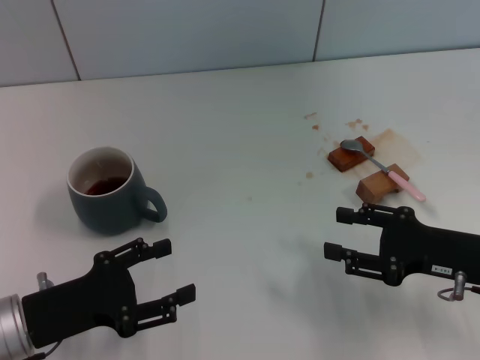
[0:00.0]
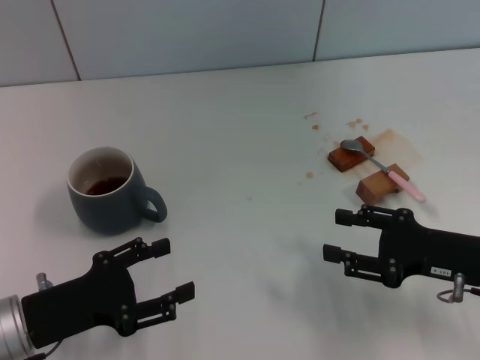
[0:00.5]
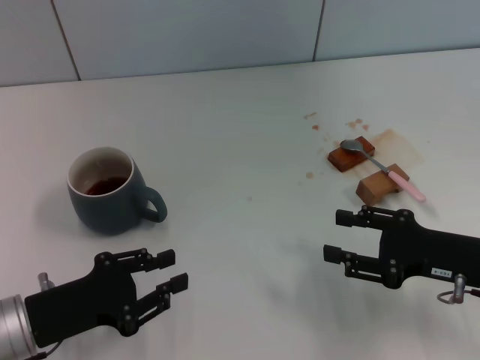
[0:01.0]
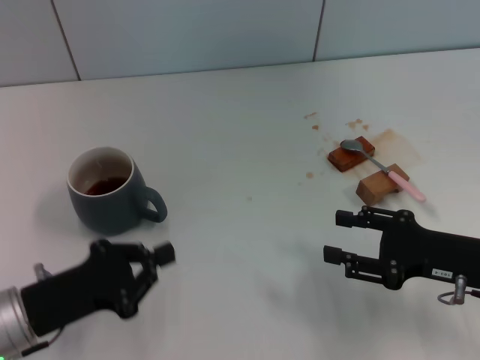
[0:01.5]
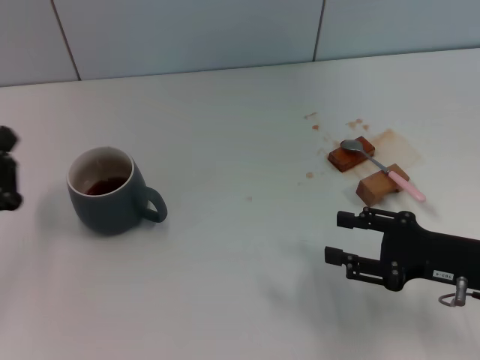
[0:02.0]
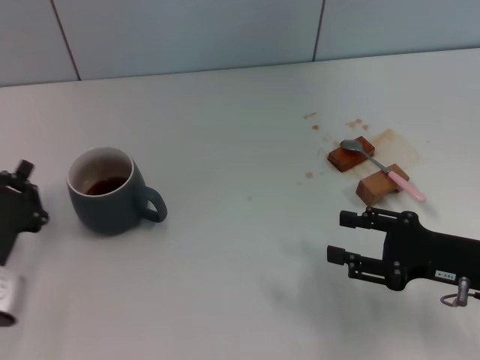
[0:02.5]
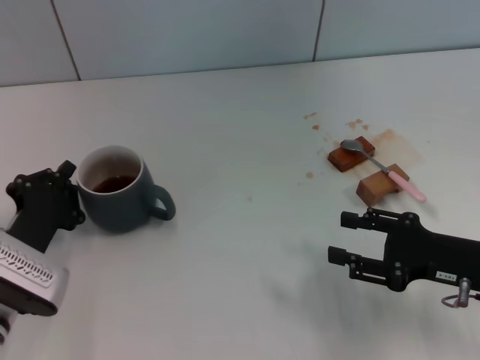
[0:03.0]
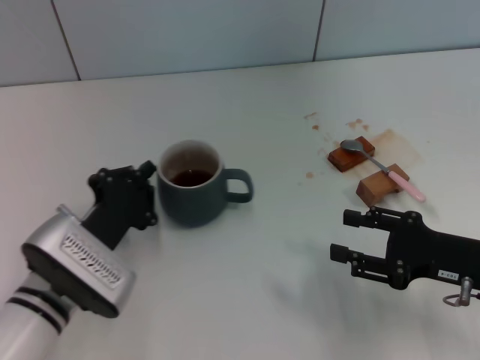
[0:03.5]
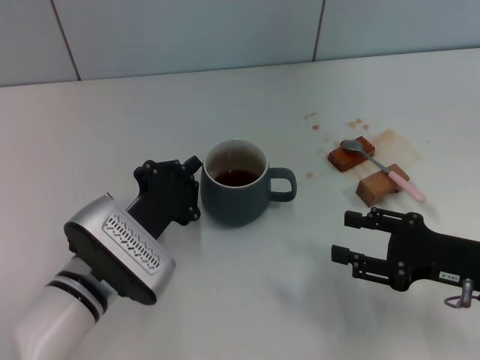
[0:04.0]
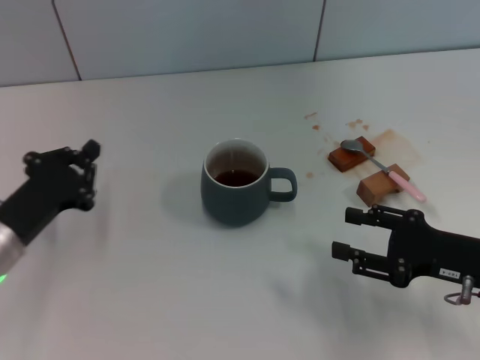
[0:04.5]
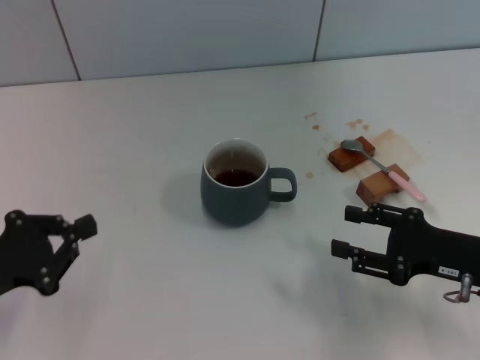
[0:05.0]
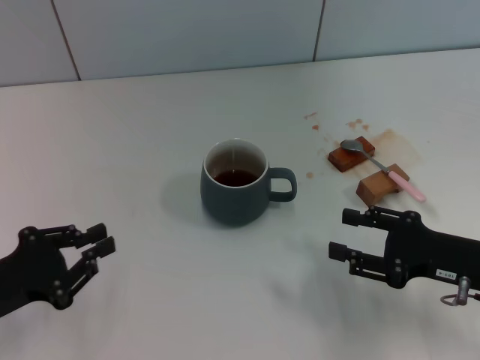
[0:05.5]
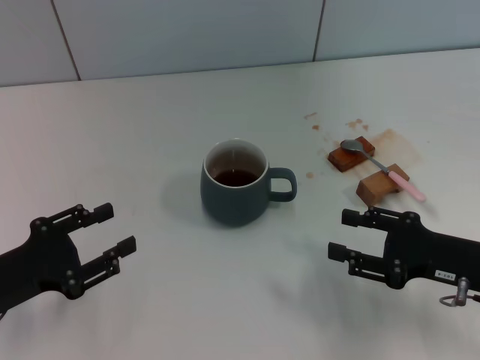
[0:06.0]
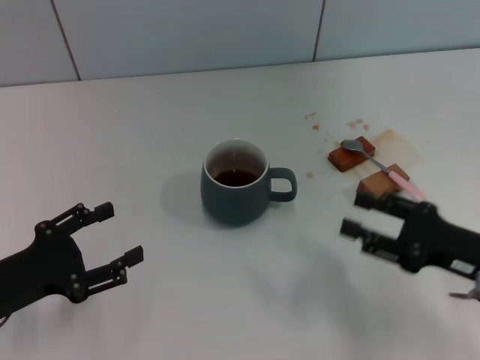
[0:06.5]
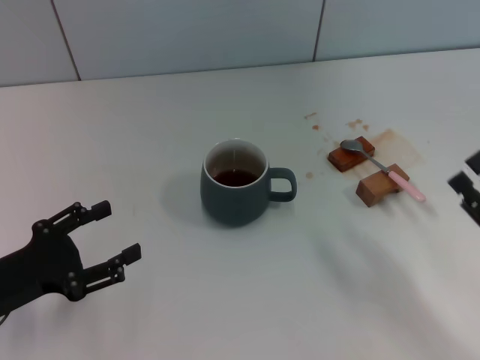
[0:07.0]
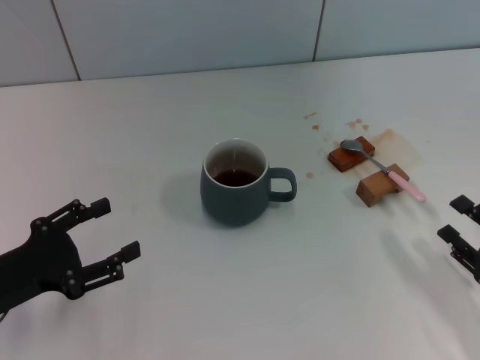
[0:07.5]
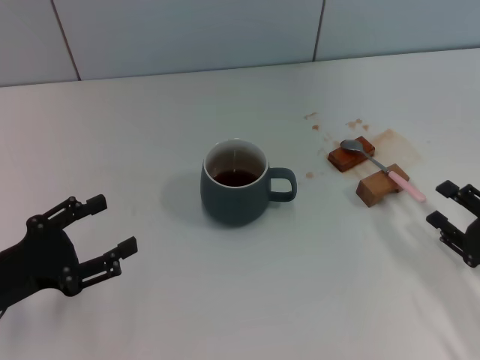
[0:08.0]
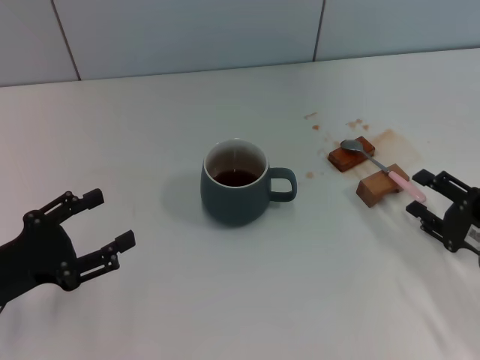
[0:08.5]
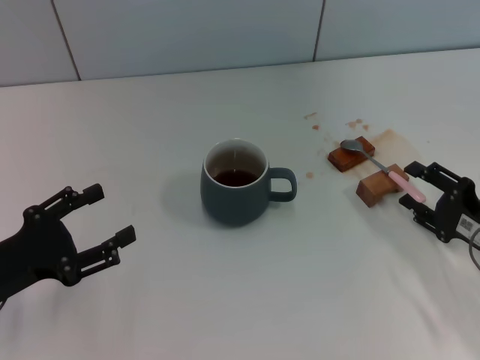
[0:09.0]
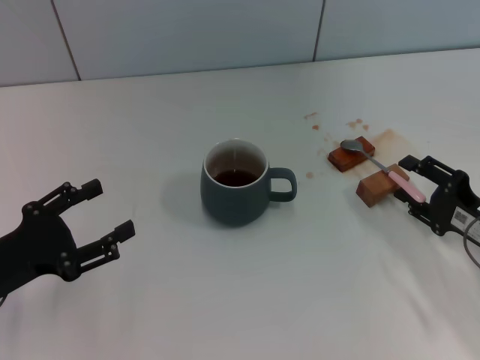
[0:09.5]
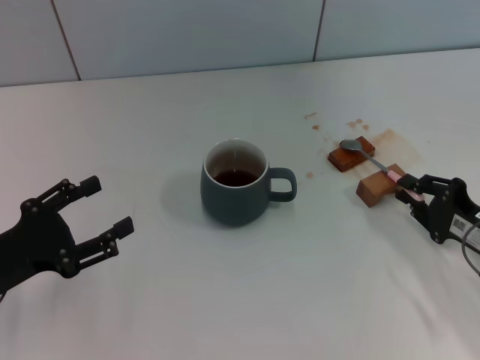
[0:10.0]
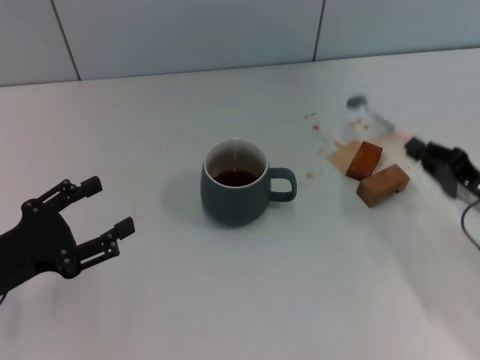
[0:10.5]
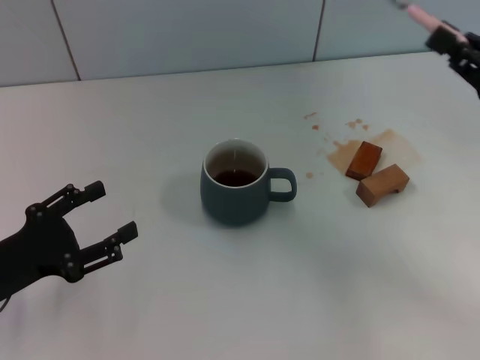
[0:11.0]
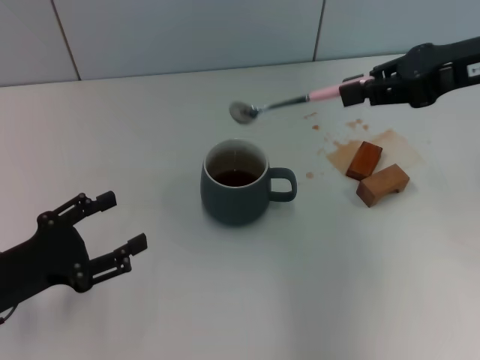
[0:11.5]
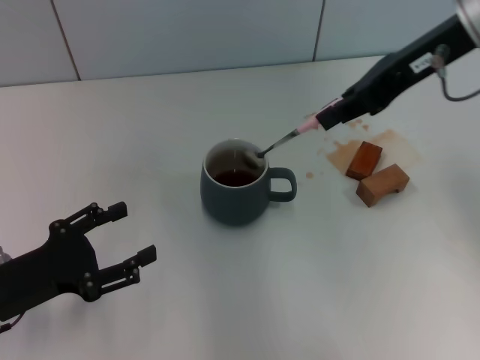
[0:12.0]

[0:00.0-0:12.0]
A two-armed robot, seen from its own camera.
Task of the whole recording: Move the grey cup to the center, lift the pink spoon, stir it three times in the cup, and put the spoon into the cup.
Step, 0:00.0 to 0:03.5: Move the cup with coffee to the center of view with the left gripper.
Step, 0:04.5 to 0:10.0: Pick up the spoon with the right gripper.
0:00.0 to 0:02.0: The left gripper closes its fingers.
0:02.0 to 0:04.0: The left gripper moves to the right, some 15 cm.
0:04.0 to 0:06.0: The left gripper goes roughly 15 cm to the left, and opens.
0:06.0 to 0:08.0: The left gripper opens. Meanwhile the right gripper moves roughly 5 cm.
0:08.0 to 0:10.0: The right gripper shifts by about 5 cm, and closes.
0:10.0 to 0:12.0: The right gripper moves upward and forward, roughly 30 cm, and closes its fingers.

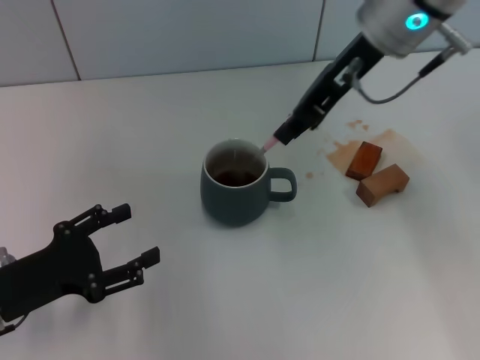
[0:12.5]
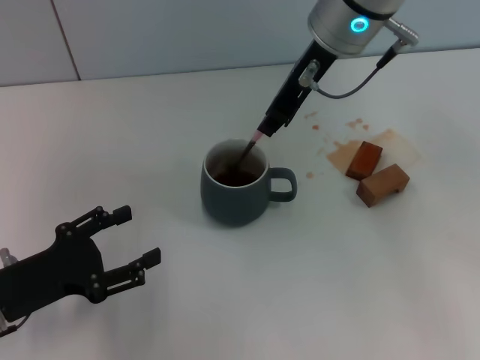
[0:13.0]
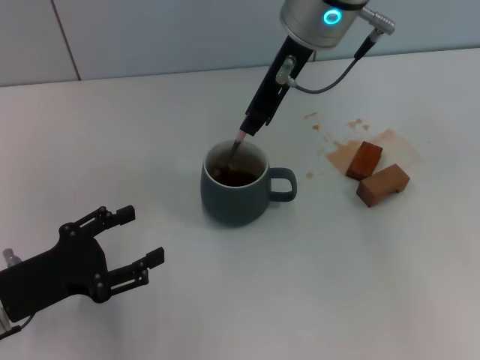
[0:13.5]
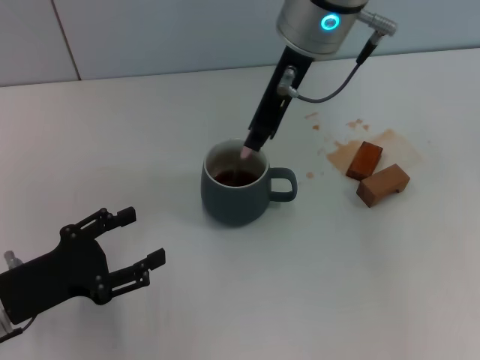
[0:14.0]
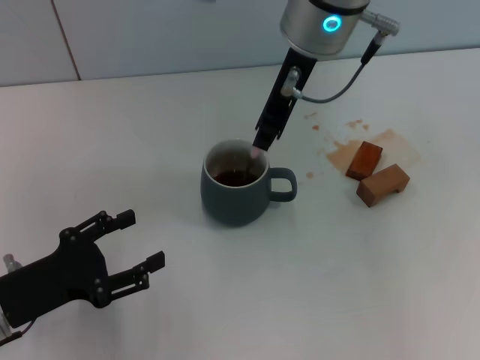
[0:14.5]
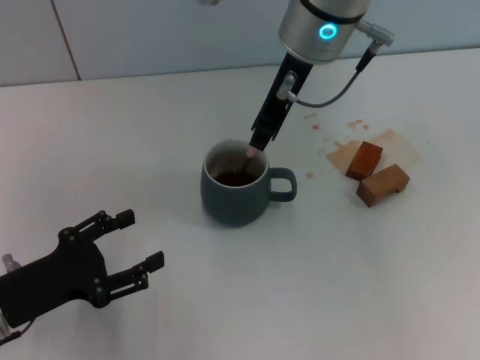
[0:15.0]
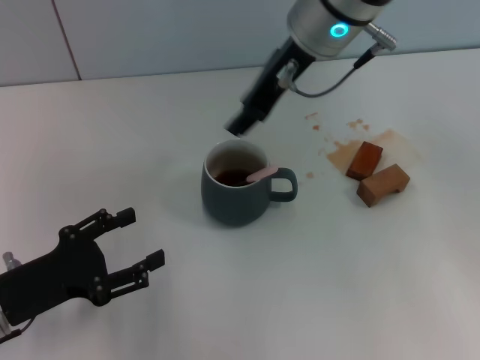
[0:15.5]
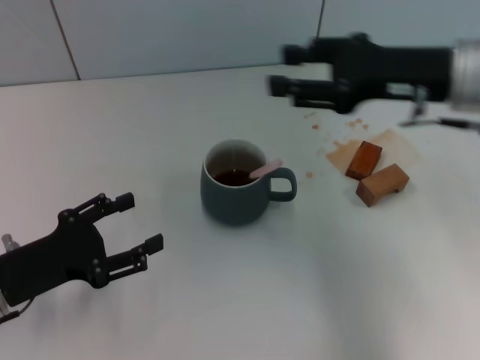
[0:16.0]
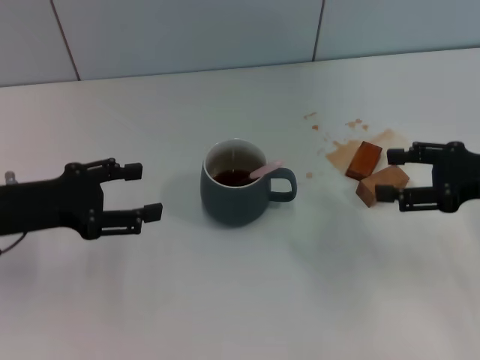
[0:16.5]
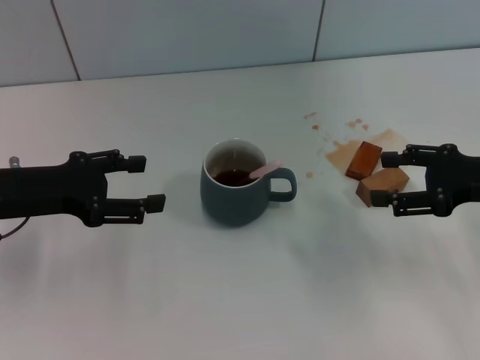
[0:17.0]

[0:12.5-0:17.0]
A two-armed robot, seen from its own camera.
Task of the whole recording: Move the grey cup to the center, lift the pink spoon, stir it three times in the cup, and put the spoon into the cup.
Step, 0:12.5 to 0:15.0: Stir the coffee in the cup with the right gripper.
0:12.5 to 0:14.5: The right gripper moves to the left, approximately 5 cm.
0:14.5 to 0:17.0: The left gripper travels forward and upward by approximately 10 cm. Meanwhile the right gripper shifts about 30 cm to the right, downward and backward, and opens its fingers.

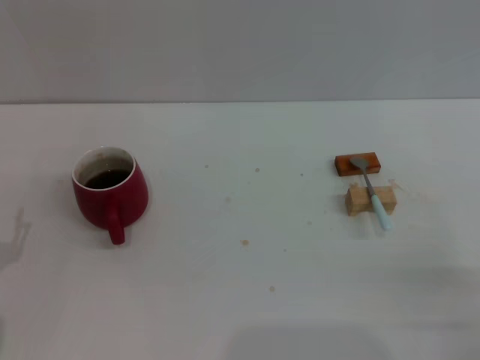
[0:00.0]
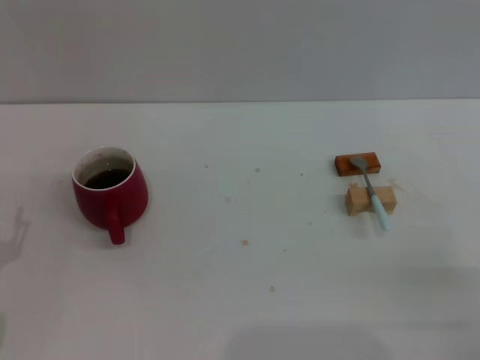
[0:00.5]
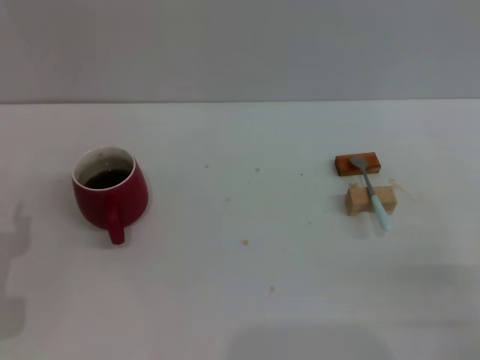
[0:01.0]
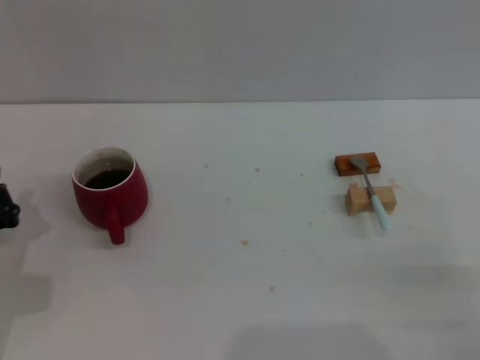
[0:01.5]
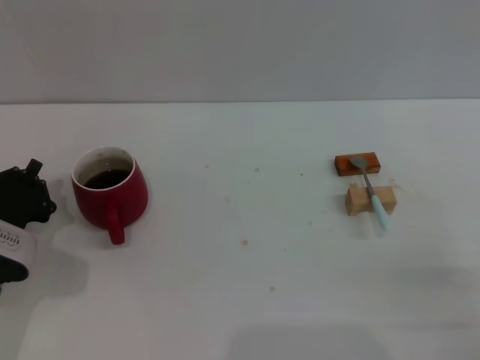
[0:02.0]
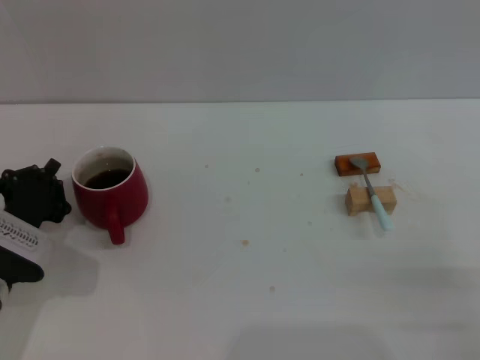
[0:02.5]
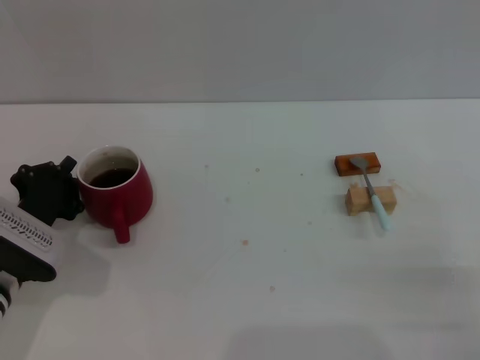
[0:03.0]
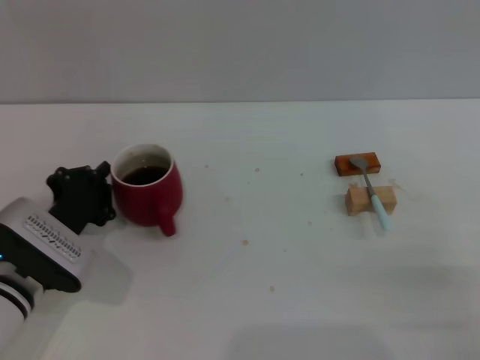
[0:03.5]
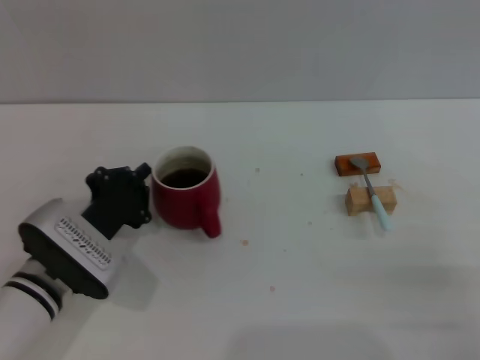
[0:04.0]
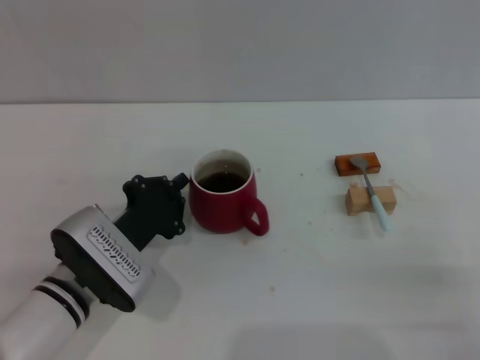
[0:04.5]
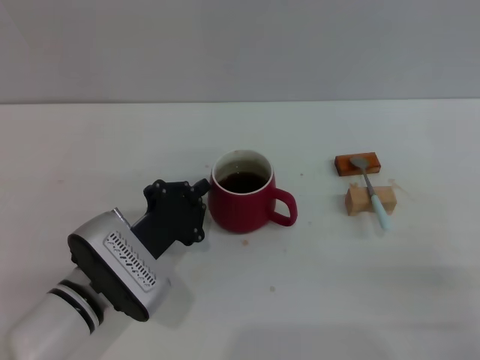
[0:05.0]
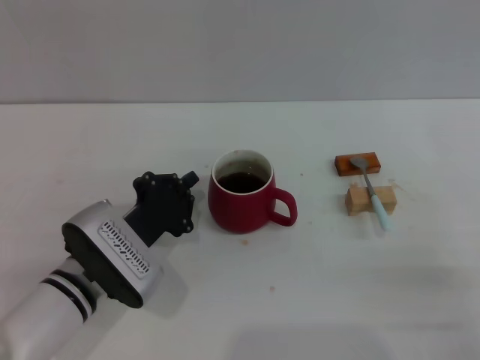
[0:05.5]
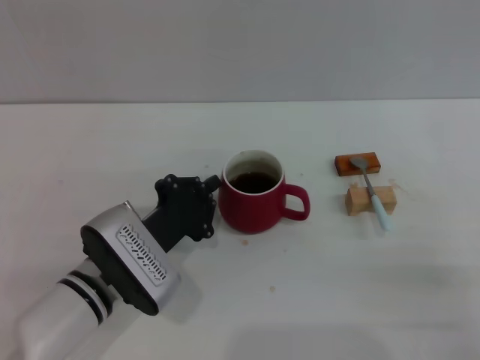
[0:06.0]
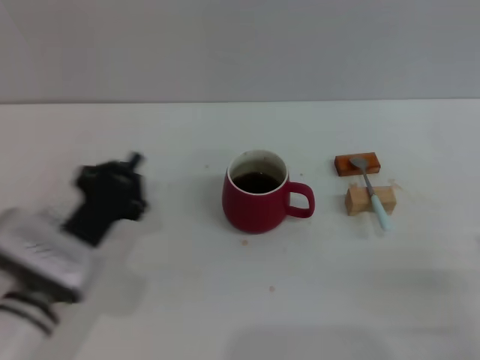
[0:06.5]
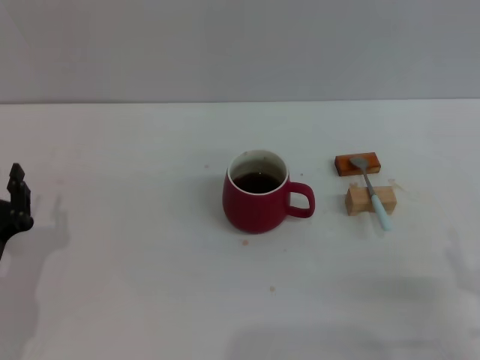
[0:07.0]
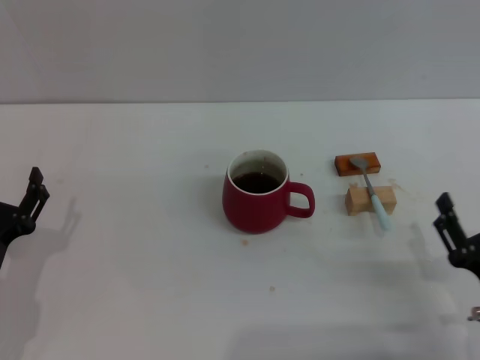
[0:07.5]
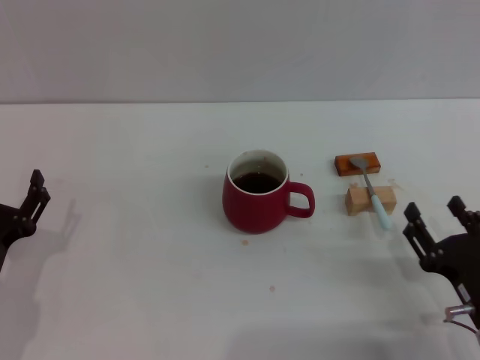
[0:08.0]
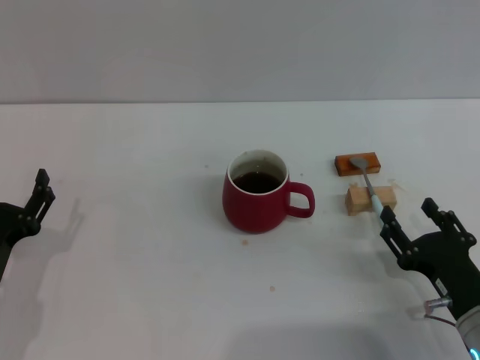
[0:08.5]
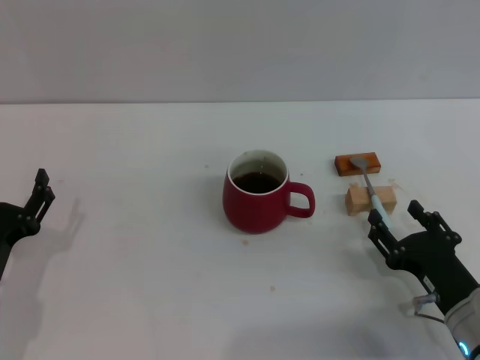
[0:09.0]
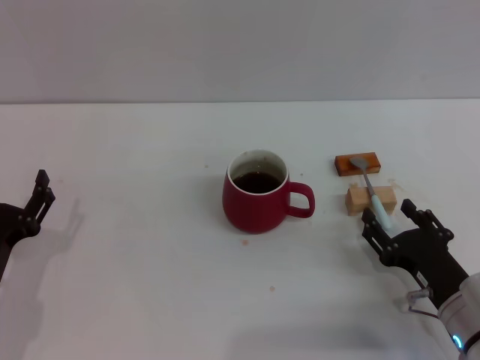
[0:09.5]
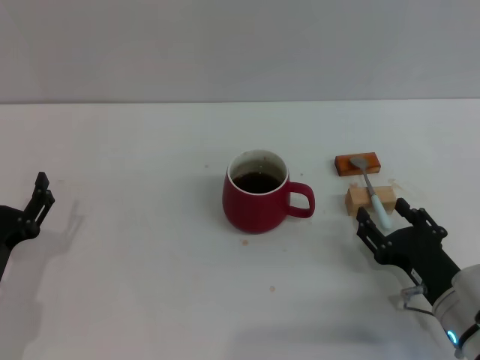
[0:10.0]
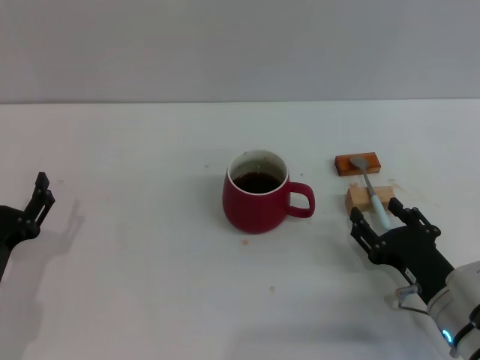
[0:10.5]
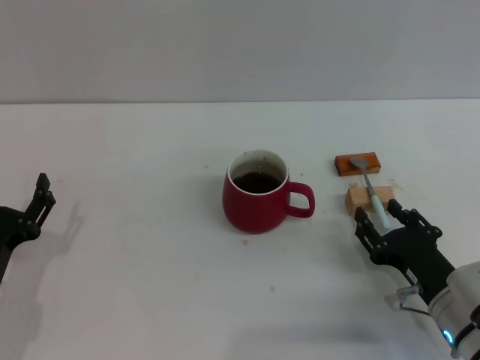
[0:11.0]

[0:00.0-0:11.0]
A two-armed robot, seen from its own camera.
Task of the whole recording: Move the red cup to the center, lift the blue spoon, stir it three times in the cup, and put the spoon into the cup.
Step, 0:00.0 to 0:06.0: Move the cup with coffee to the center of view with the left gripper.
0:00.0 to 0:02.0: The left gripper moves forward, about 10 cm, and closes its fingers.
0:02.0 to 0:03.5: The grippers make only small movements.
0:03.5 to 0:05.5: The left gripper shifts about 5 cm to the right.
0:05.5 to 0:07.5: The left gripper goes about 10 cm to the left and backward, and opens.
0:07.5 to 0:09.0: There are only small adjustments of the grippers.
0:09.0 to 0:11.0: The grippers make only small movements.
